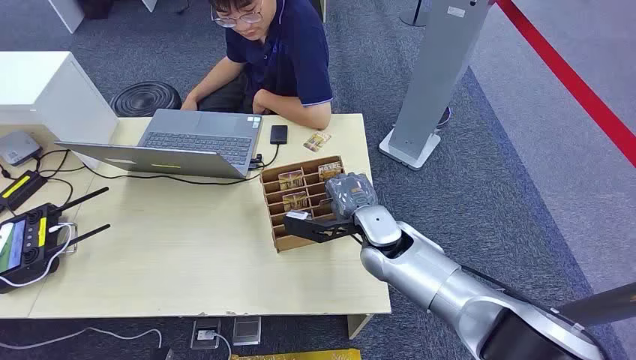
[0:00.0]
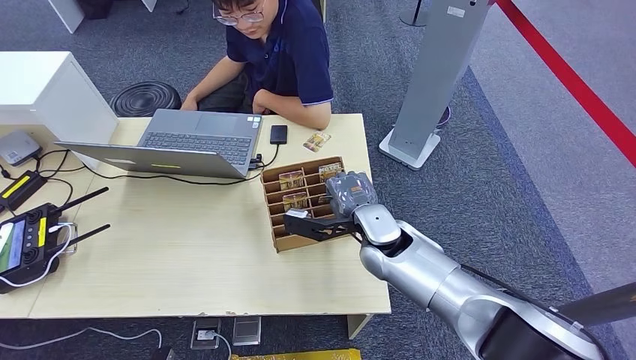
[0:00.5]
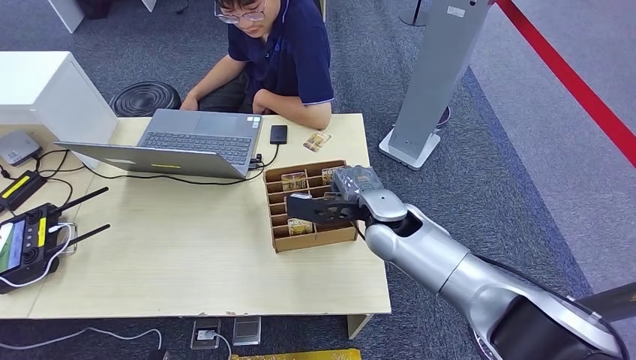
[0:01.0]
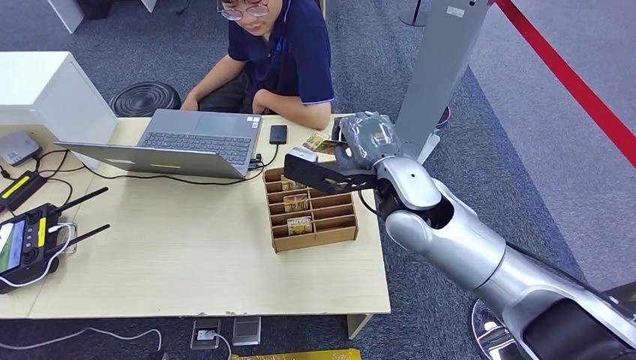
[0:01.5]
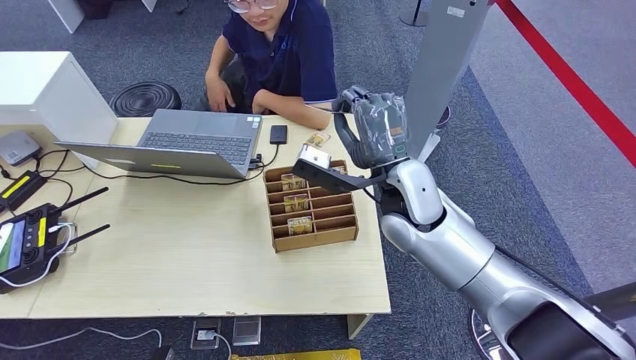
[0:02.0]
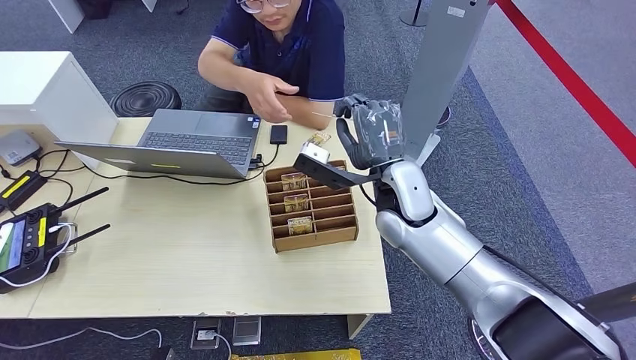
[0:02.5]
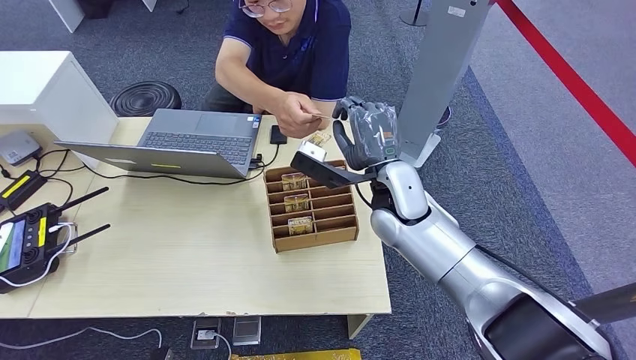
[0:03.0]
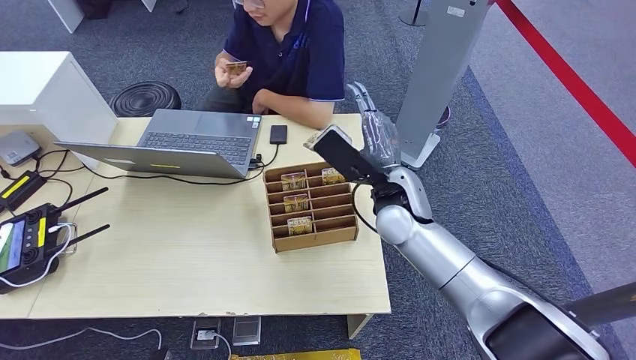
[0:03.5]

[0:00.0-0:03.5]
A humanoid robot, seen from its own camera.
Step, 0:00.0 to 0:01.5: Pick up the key card from the card box.
Step, 0:02.0 to 0:03.5: Hand the key card to the target.
